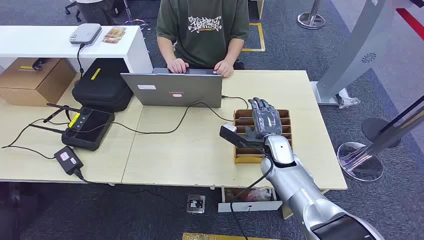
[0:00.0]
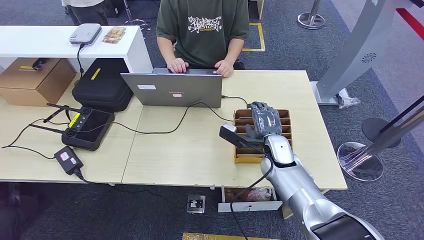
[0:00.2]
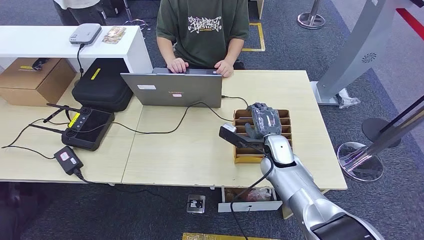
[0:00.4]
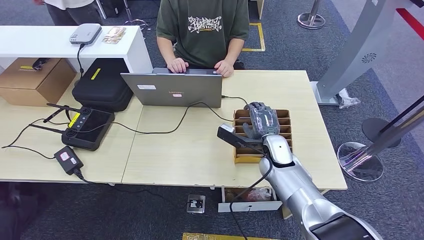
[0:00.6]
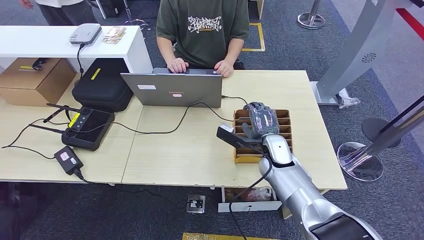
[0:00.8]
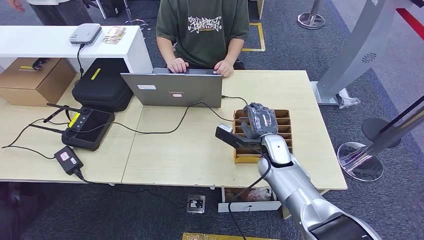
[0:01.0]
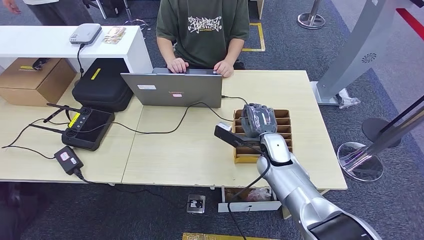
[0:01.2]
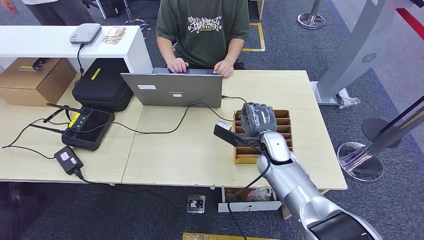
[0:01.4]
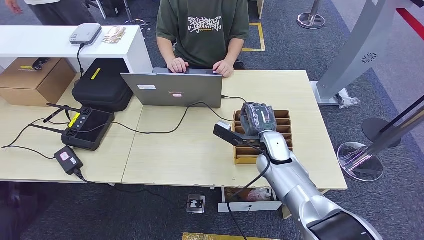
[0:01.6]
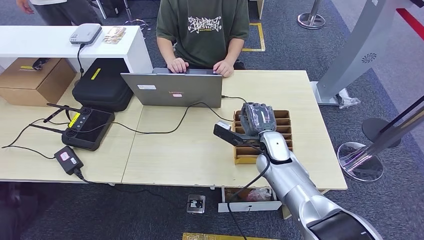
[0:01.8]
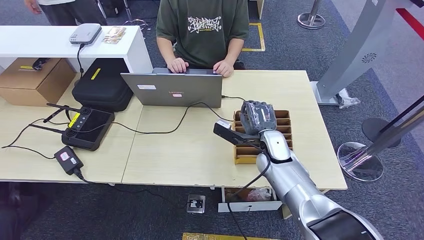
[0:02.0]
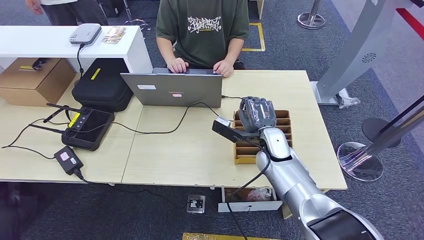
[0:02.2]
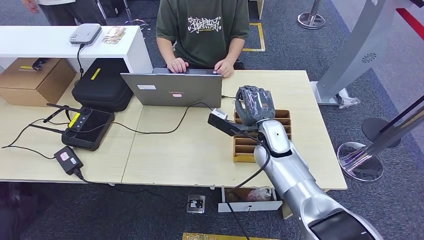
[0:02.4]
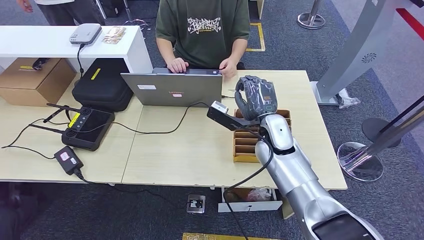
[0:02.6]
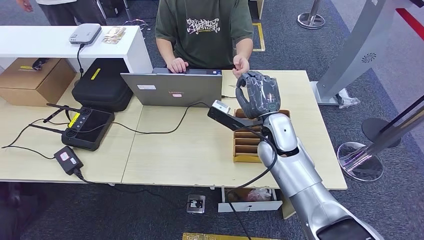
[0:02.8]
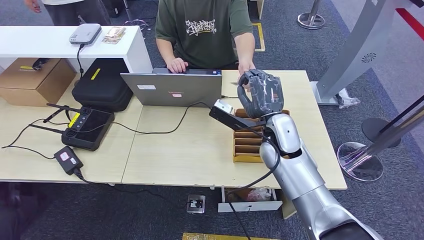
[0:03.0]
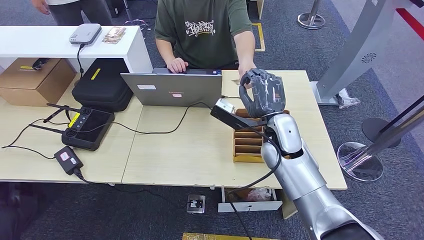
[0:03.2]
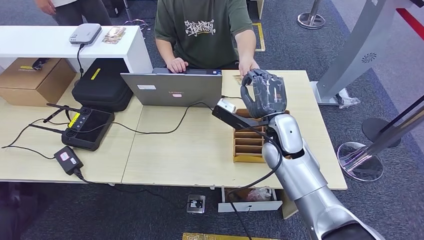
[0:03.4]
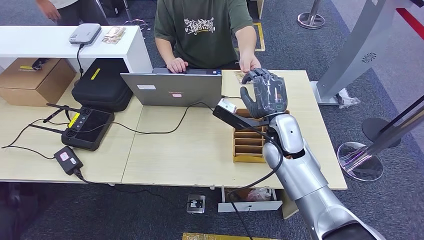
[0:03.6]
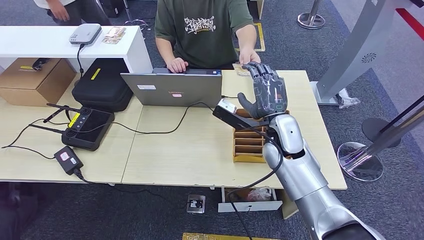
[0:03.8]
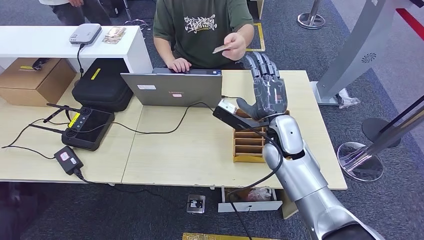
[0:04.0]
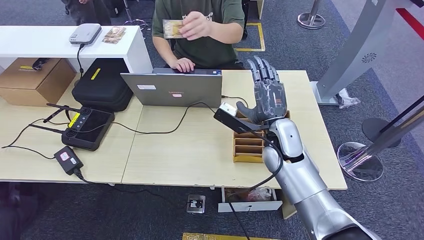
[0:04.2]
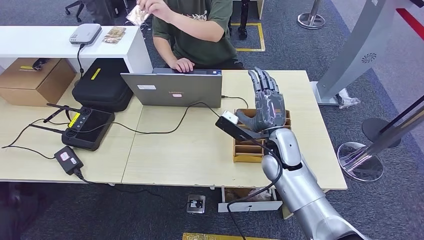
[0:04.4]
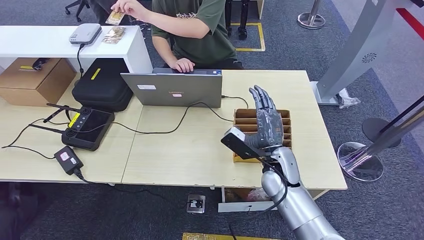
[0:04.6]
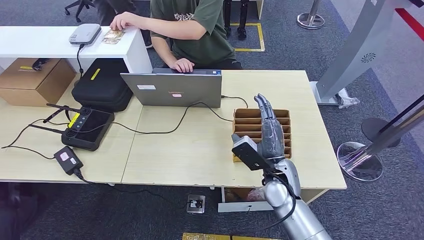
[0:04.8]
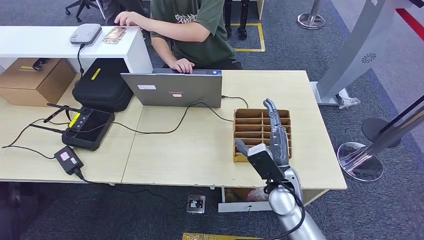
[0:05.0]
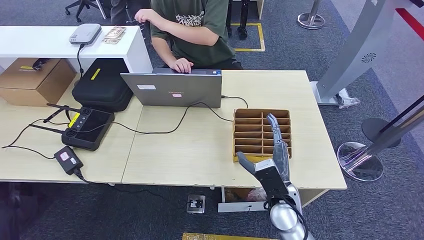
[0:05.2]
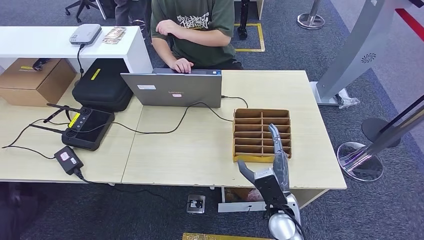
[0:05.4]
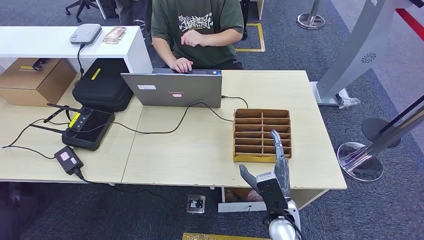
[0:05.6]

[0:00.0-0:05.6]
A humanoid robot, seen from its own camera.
Step, 0:00.0 to 0:02.4: Pick up the key card from the card box.
Step, 0:02.6 to 0:05.6: Hand the key card to the target.
0:01.4 to 0:02.8: The right hand shifts some 10 cm upward.
0:02.8 to 0:04.2: The hands make only small movements.
0:04.2 to 0:05.6: The right hand moves backward and downward, approximately 20 cm.
